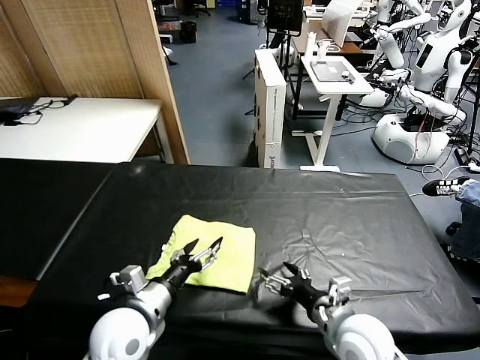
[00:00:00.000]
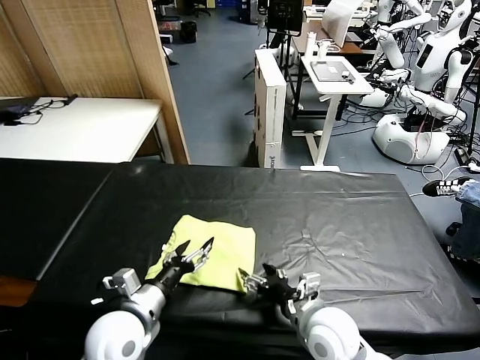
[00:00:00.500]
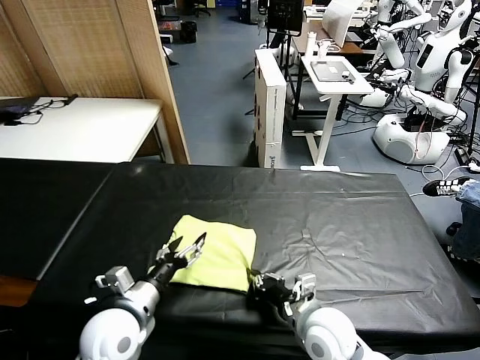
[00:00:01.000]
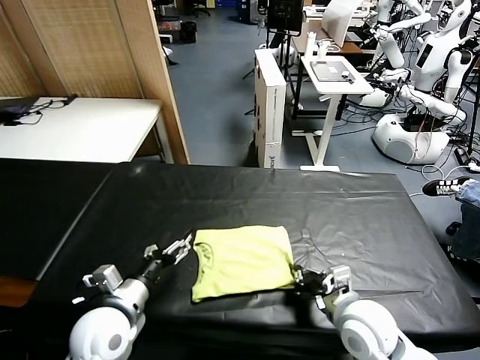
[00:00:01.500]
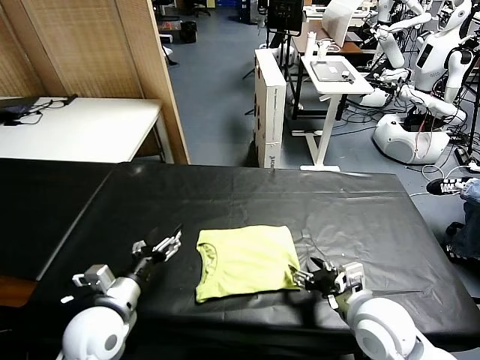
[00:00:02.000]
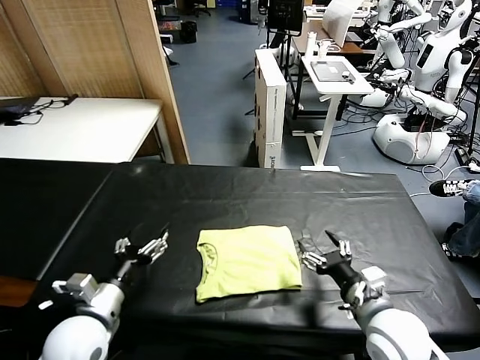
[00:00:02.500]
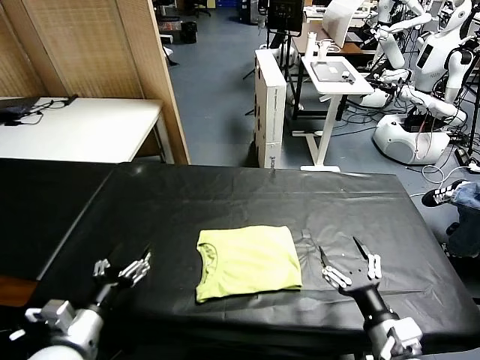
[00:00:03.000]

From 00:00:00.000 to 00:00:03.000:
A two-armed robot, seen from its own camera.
Task of the whole recording: fold and organize the clothes.
Step, from 00:00:00.000 to 00:00:02.000: Drag the clothes to the center of the table.
From 00:00:00.000 to 00:00:01.500: The right gripper closes up.
From 00:00:01.500 to 00:00:03.000: The right gripper is displaced backward by approximately 10 cm, and opens its fingers, while the left gripper goes some 10 cm backward and to the left.
